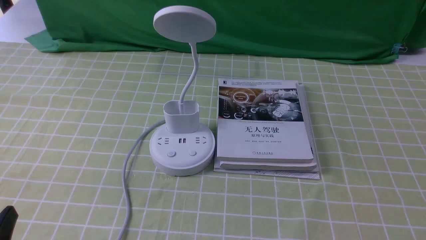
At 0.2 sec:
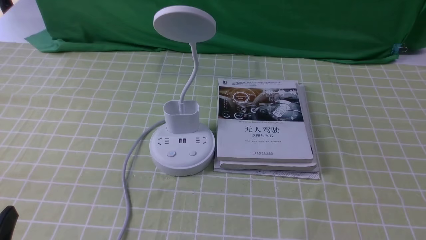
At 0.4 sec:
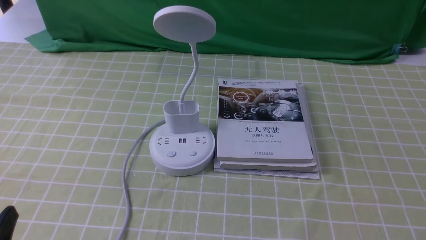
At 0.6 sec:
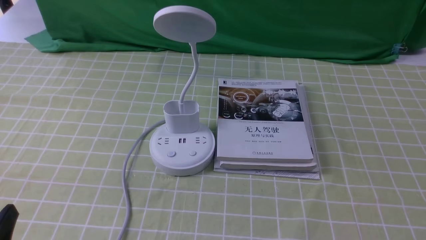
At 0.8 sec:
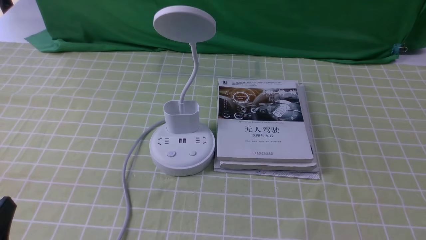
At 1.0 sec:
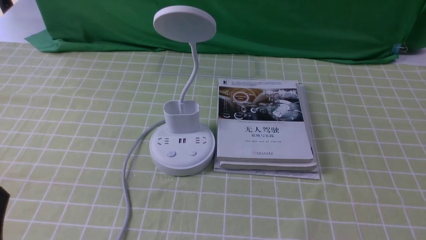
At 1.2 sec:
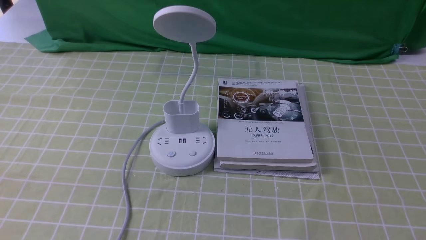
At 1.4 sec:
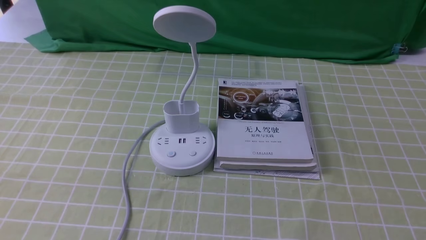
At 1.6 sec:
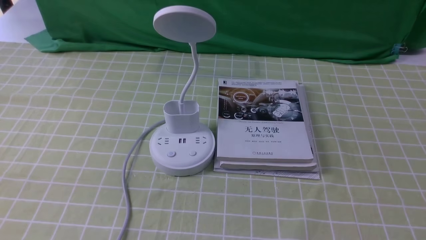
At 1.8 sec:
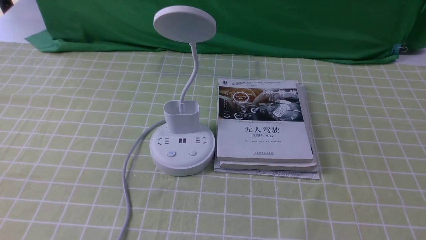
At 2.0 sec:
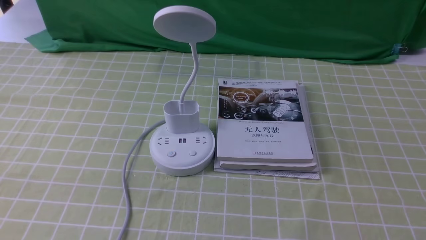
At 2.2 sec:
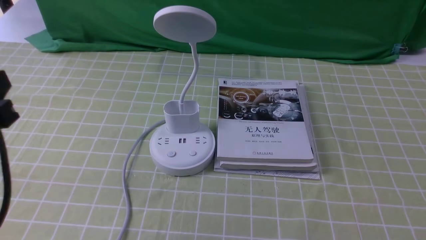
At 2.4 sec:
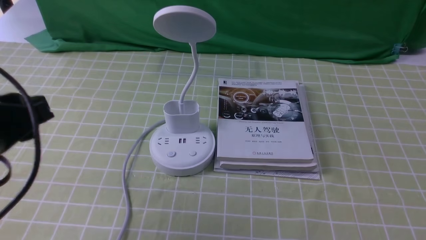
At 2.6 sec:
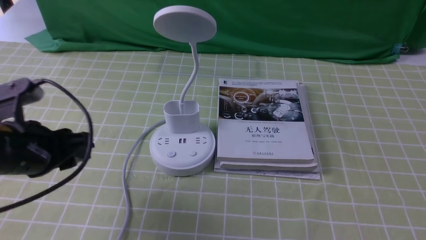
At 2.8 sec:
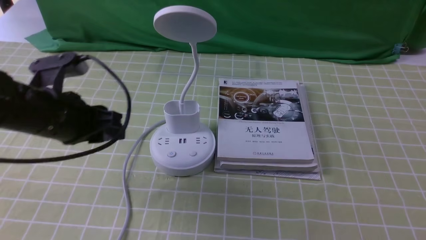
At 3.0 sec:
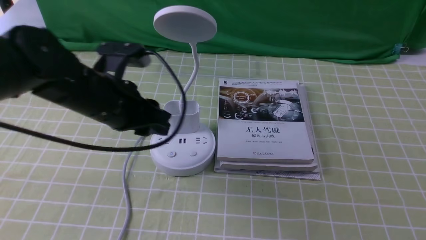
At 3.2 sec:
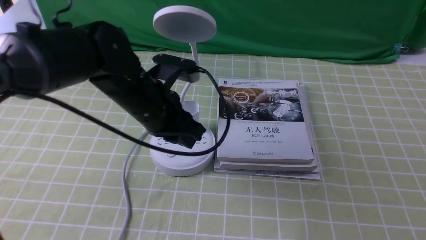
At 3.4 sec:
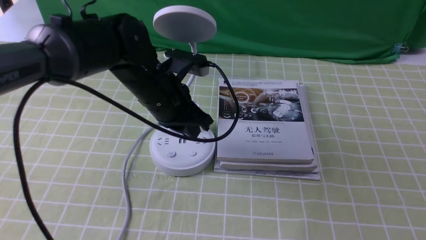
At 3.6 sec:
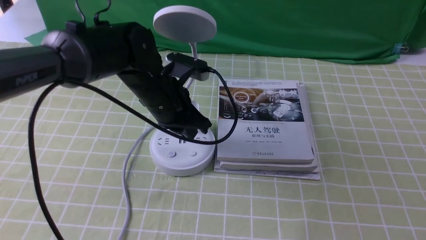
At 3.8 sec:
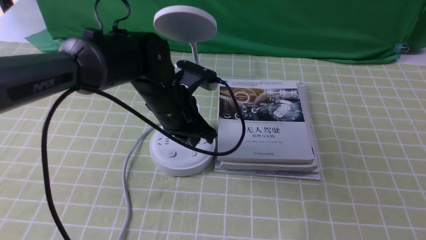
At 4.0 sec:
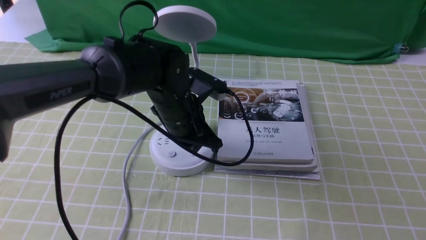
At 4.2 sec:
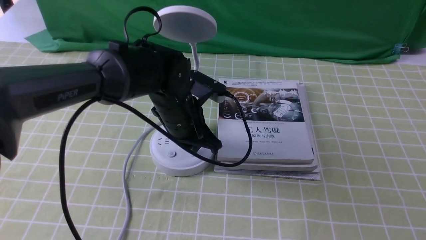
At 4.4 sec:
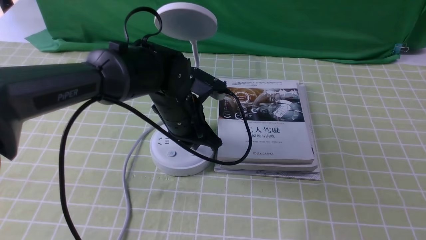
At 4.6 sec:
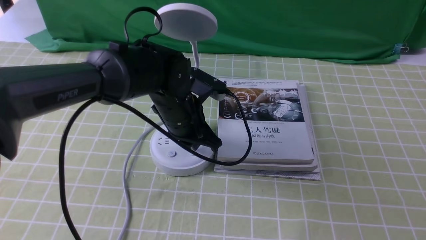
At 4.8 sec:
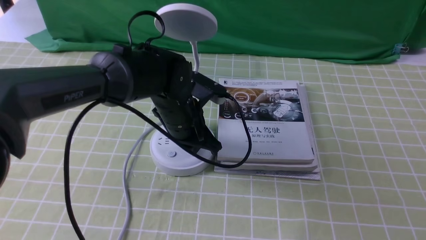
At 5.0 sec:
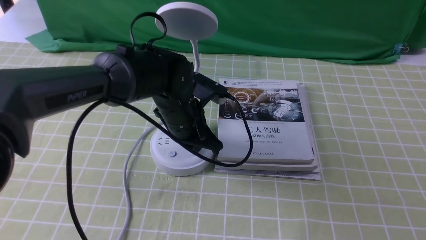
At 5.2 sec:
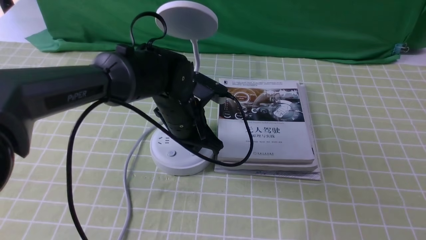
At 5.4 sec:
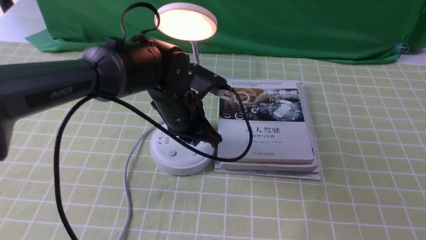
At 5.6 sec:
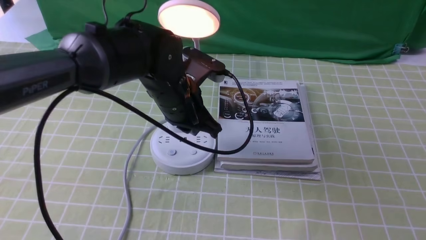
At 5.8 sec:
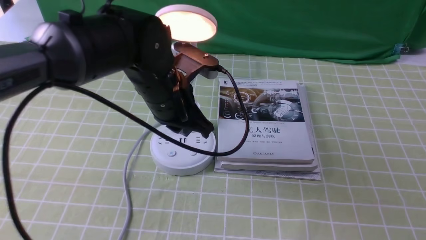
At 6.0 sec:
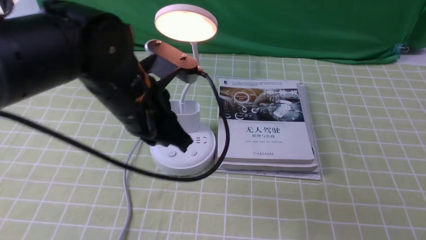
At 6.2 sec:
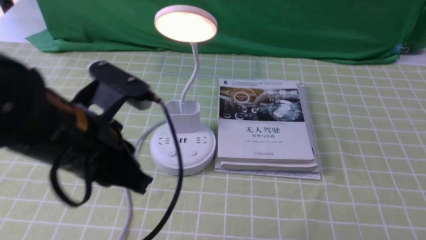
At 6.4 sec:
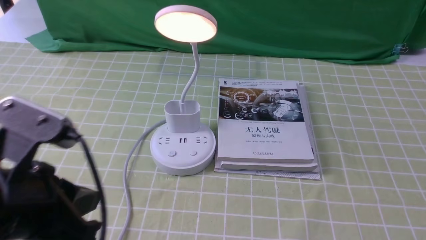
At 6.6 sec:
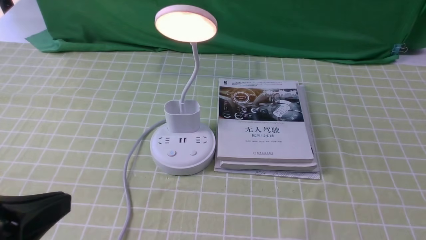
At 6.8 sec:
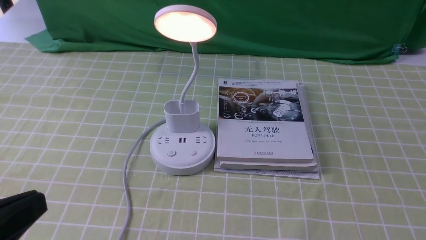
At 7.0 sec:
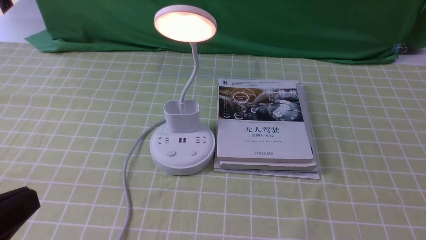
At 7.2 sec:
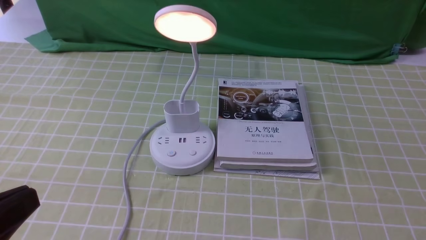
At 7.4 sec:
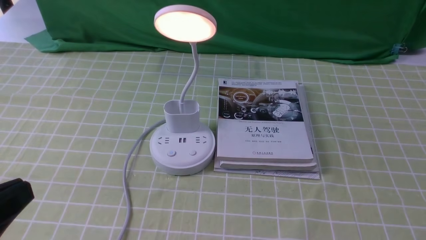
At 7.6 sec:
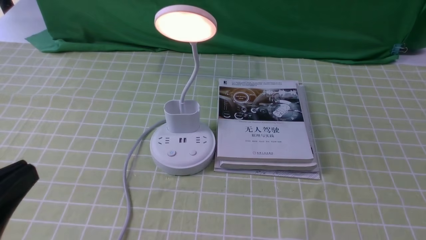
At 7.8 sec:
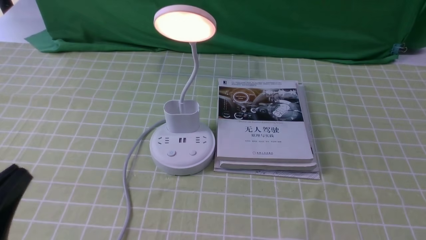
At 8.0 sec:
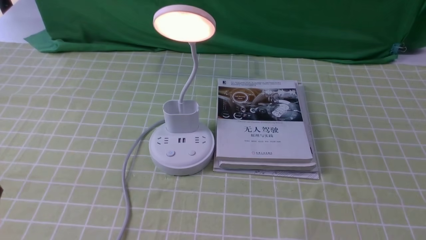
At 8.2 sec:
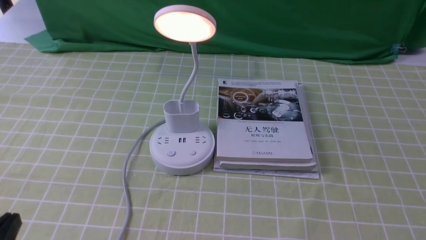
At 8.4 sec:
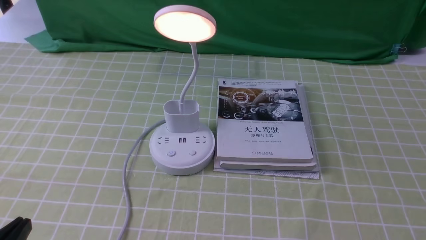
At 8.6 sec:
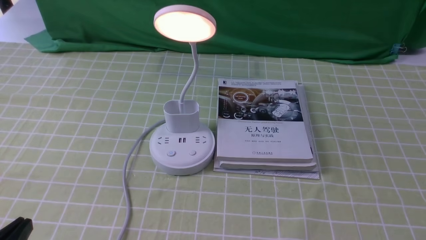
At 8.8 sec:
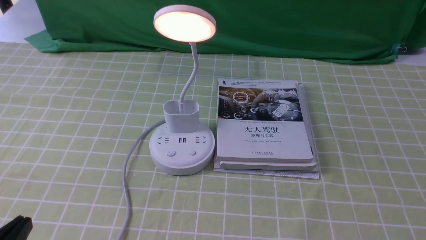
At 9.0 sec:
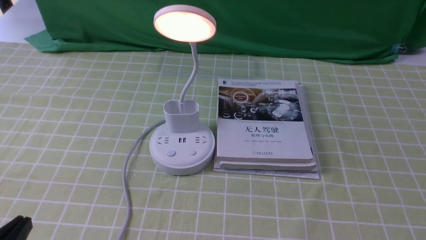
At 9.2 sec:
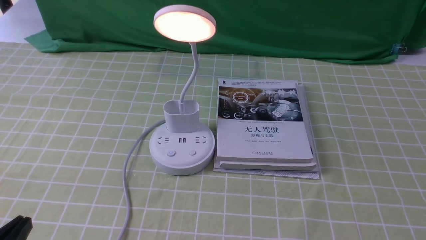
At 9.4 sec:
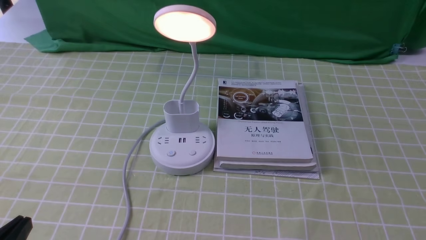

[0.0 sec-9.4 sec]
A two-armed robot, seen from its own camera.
Step, 0.0 sec to 5.4 sec: use the left arm to press the button switch on the lamp holder.
1.6 sec to 3.2 sec: The left gripper is displaced forward and to the right by about 35 cm, and closes.
3.2 sec to 4.8 sec: The left gripper heads downward and to the right, covering about 10 cm, and closes up.
4.8 sec to 6.2 sec: The left gripper is displaced backward, upward and to the left by some 20 cm.
6.2 sec to 7.8 sec: The left gripper heads backward, to the left and downward, covering approximately 20 cm.
7.8 sec to 9.4 sec: The left gripper shifts about 5 cm downward.
